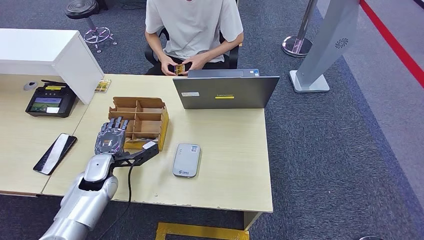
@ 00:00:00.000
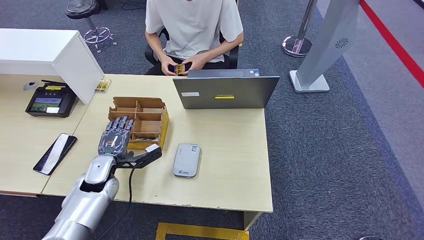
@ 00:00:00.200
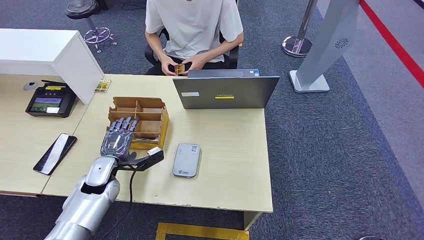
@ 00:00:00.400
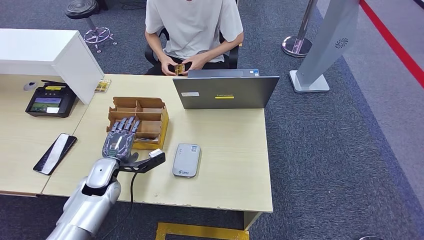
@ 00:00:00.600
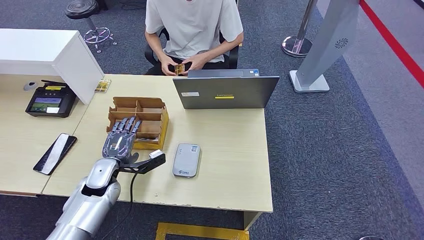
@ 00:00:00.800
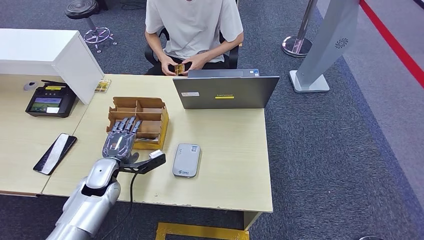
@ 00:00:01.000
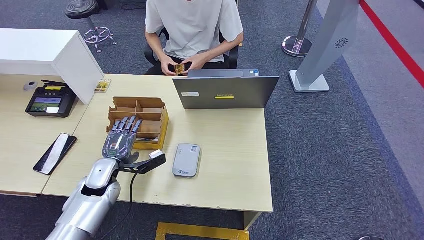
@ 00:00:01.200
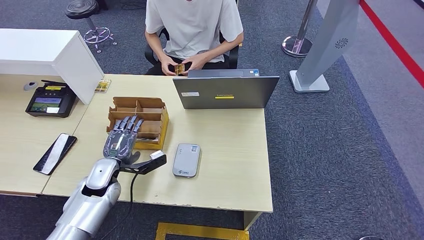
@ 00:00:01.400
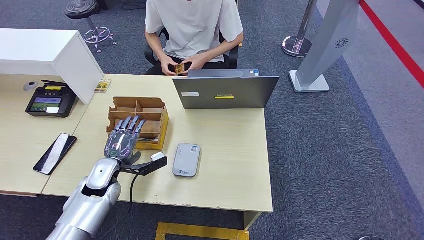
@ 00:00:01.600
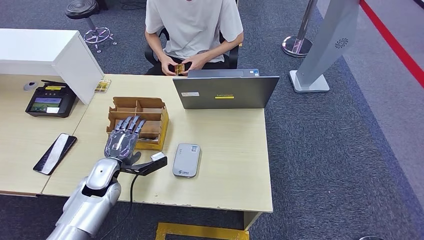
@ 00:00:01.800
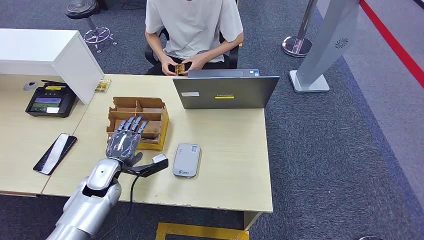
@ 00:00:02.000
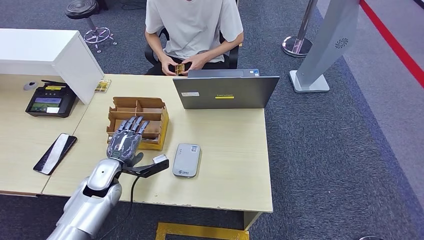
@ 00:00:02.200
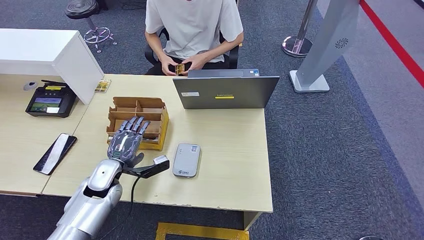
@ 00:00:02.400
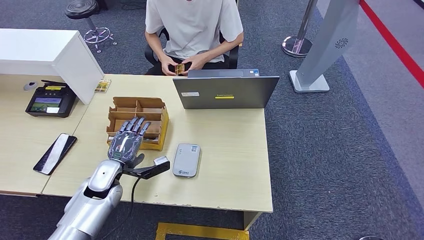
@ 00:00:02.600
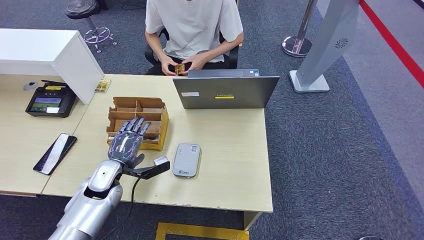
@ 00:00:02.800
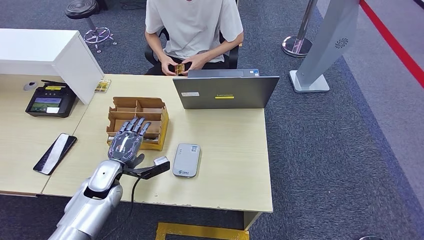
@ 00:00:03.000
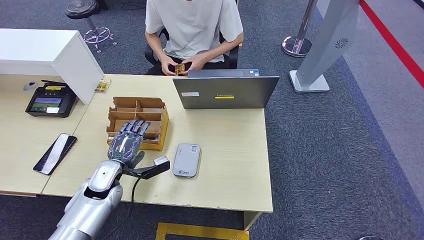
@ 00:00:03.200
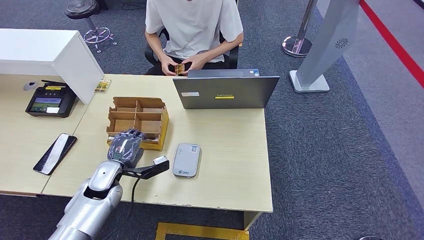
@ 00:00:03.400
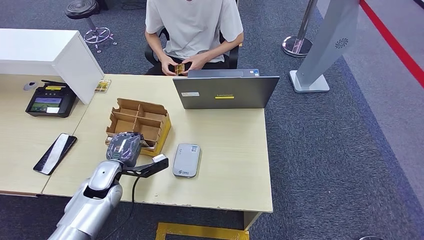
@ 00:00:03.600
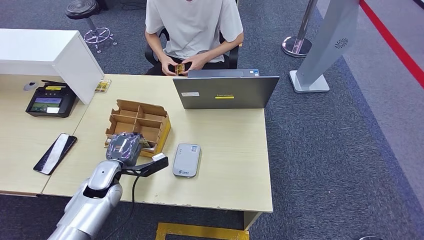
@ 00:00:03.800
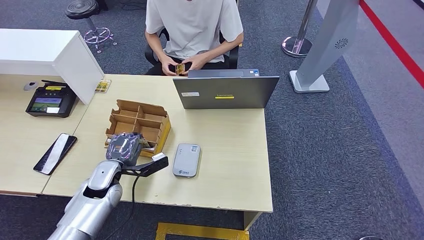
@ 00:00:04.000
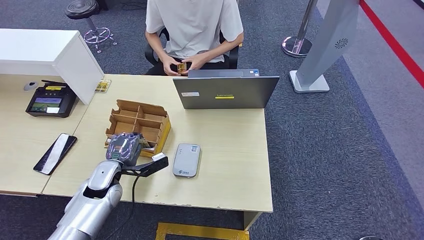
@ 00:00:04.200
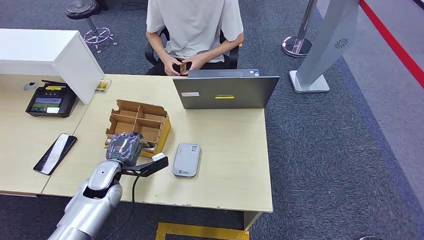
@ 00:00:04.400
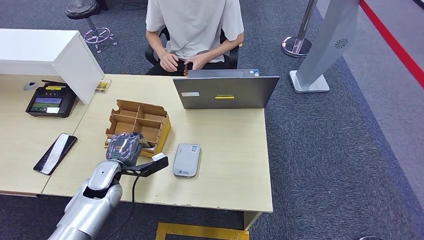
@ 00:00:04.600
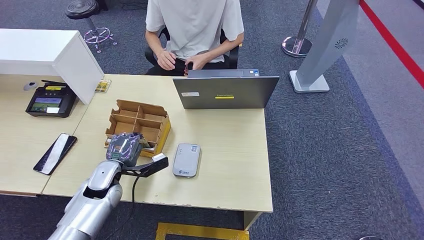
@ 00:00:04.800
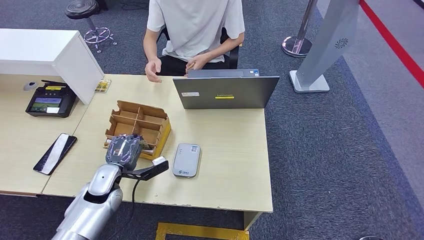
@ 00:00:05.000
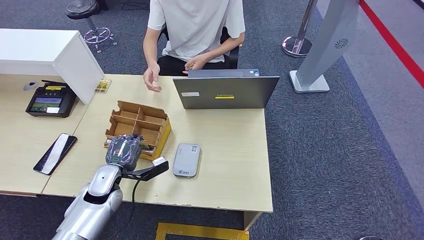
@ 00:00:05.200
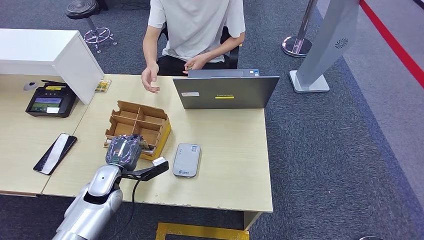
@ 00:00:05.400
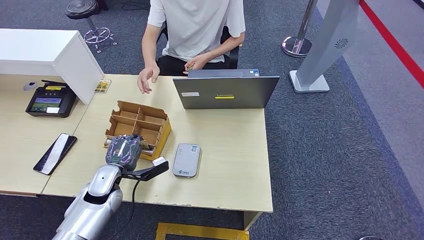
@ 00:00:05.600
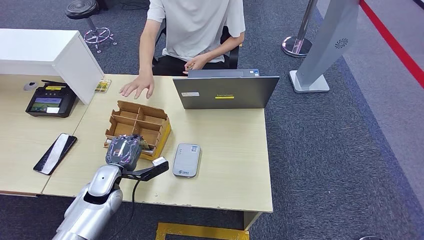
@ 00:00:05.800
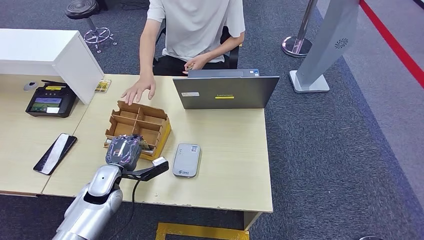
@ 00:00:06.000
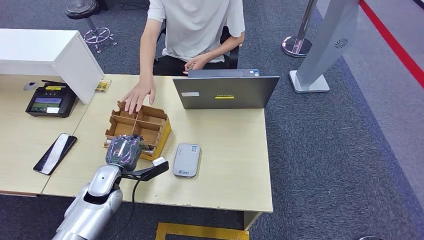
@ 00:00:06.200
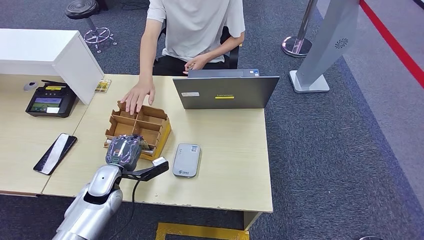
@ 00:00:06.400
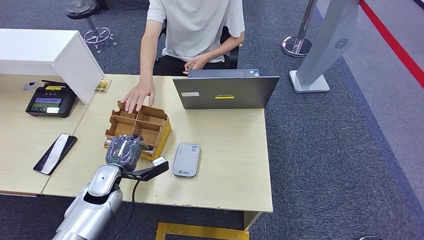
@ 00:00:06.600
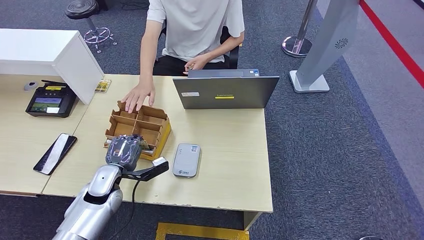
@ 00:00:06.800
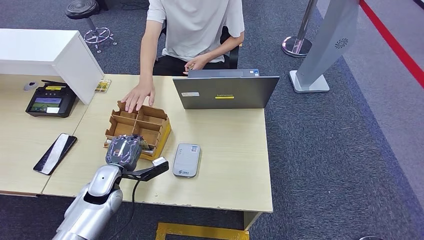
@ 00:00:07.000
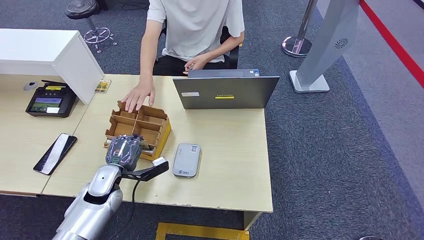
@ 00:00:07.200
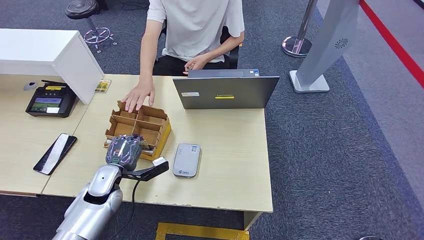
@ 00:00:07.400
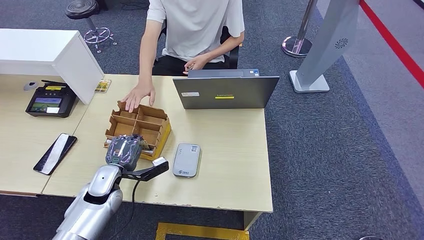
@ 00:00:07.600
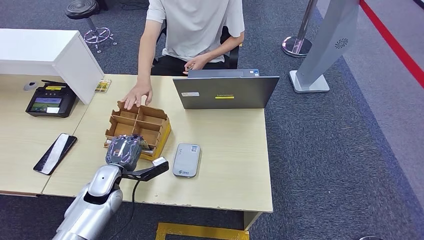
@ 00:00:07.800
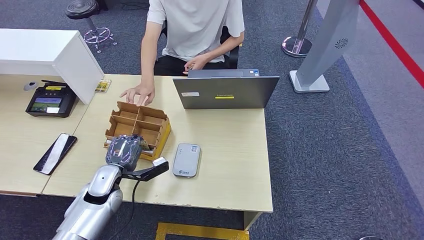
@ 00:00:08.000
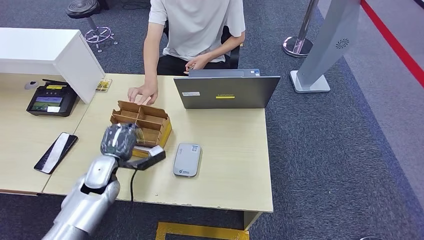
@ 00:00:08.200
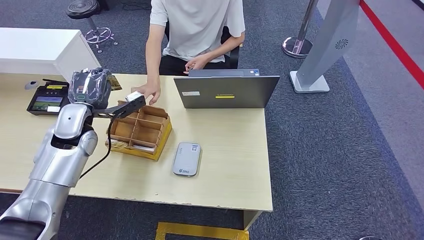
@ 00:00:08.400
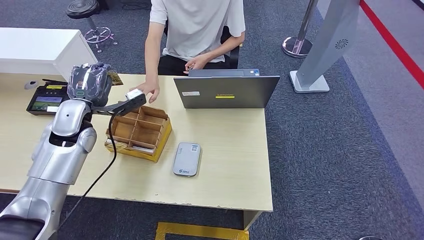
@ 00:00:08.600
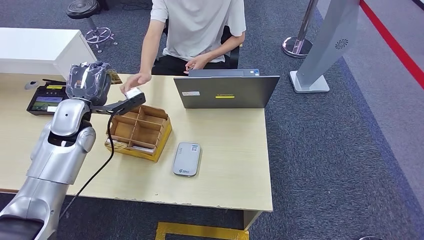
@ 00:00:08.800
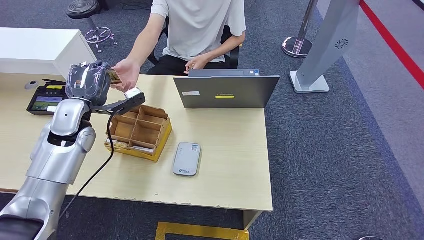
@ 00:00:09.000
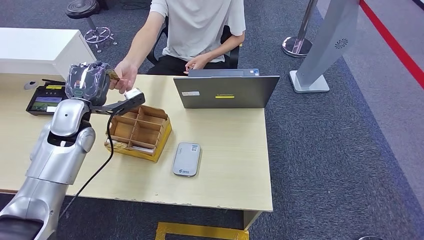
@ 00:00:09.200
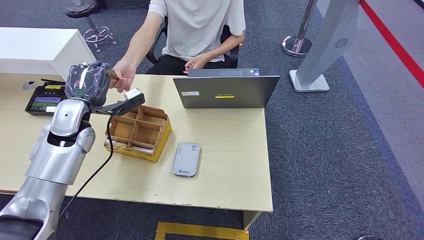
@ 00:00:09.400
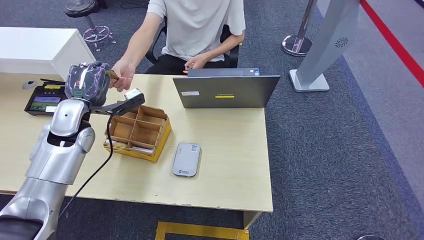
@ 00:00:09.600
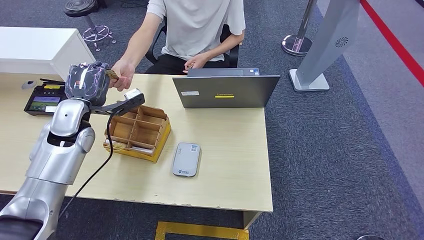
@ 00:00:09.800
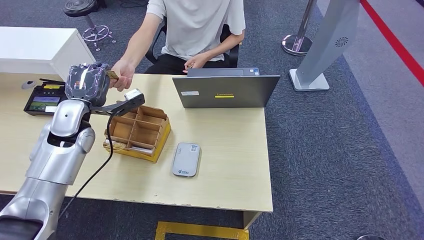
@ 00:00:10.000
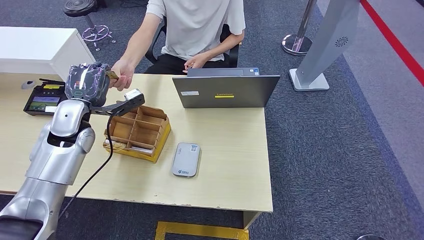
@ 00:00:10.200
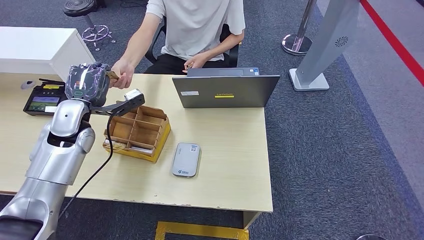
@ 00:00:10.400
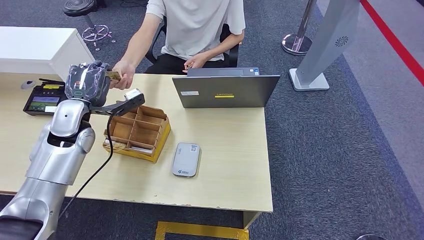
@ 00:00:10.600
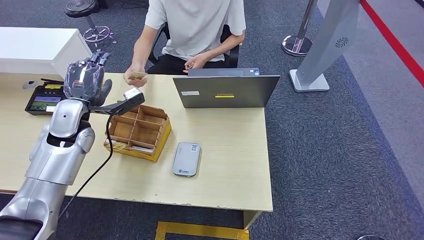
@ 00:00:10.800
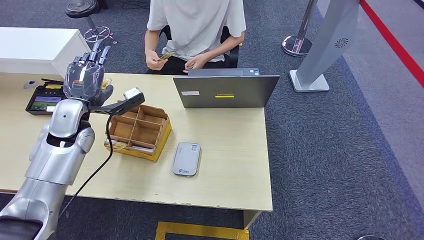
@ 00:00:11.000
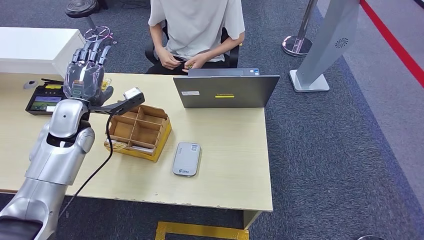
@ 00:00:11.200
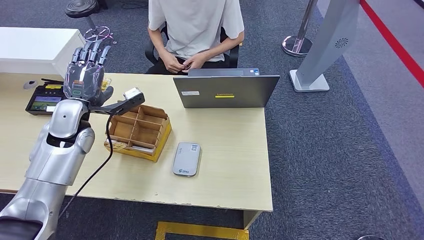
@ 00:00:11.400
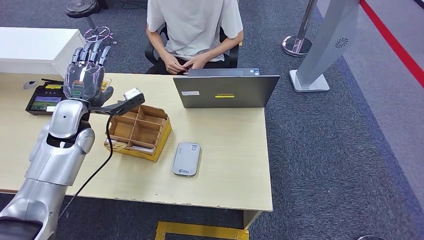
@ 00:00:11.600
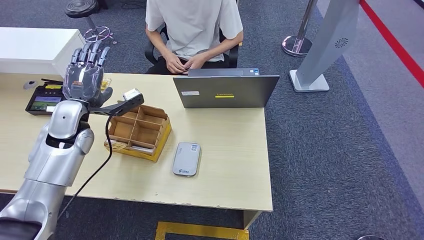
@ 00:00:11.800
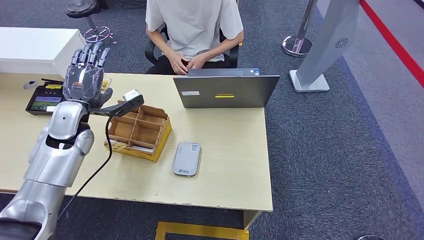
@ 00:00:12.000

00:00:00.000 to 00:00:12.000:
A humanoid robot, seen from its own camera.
Step, 00:00:00.000 to 00:00:06.400: Pick up the room key from the key card box.
Step, 00:00:06.800 to 00:00:12.000: Hand the room key to the person.
00:00:00.000 to 00:00:01.600: The hands stay close to where they were, moving slightly.
00:00:01.600 to 00:00:03.000: Neither hand changes place.
00:00:03.000 to 00:00:04.400: The hands move only a little.
00:00:04.400 to 00:00:07.600: Both hands stay about where they are.
00:00:07.600 to 00:00:09.000: The left hand is displaced upward and forward by about 20 cm.
00:00:09.000 to 00:00:12.000: The two hands keep their place.
